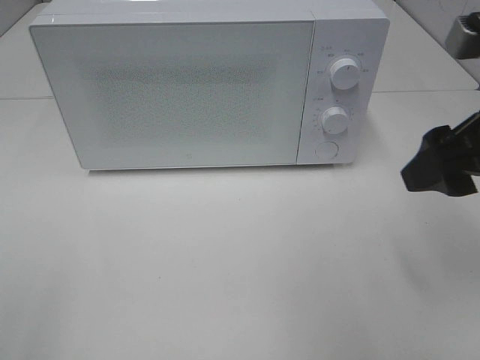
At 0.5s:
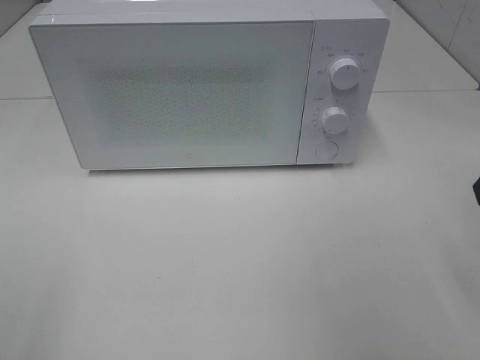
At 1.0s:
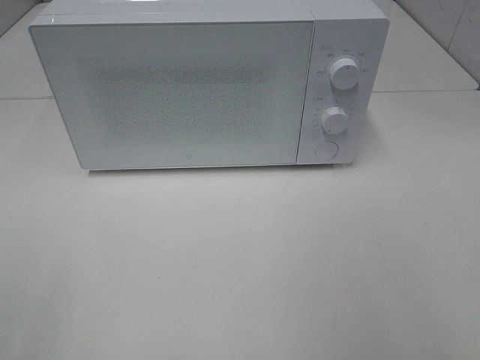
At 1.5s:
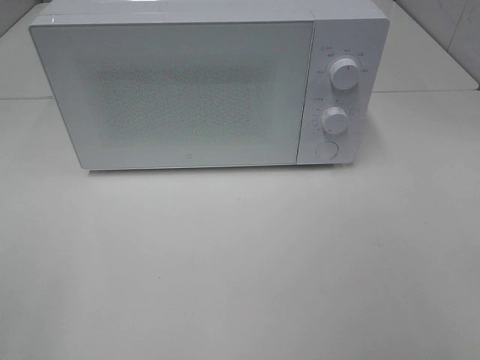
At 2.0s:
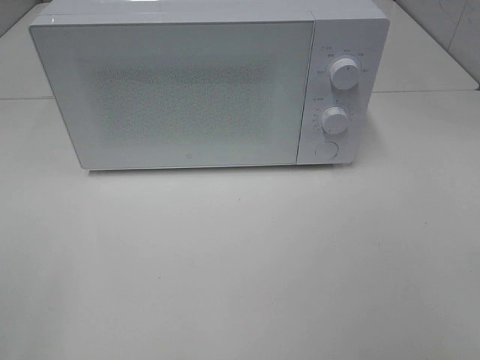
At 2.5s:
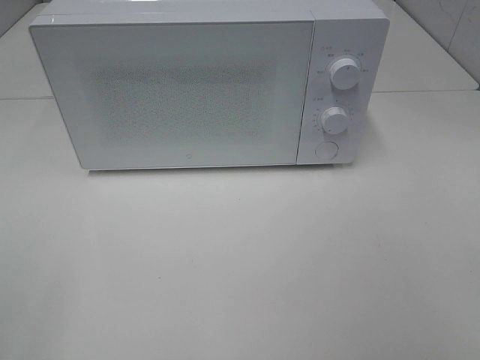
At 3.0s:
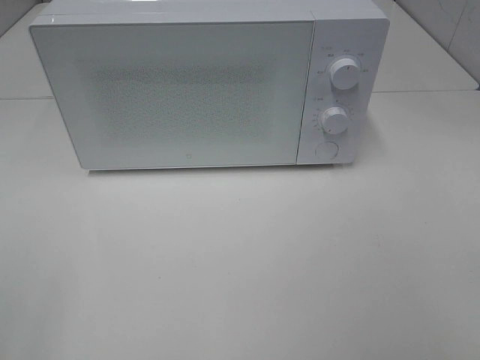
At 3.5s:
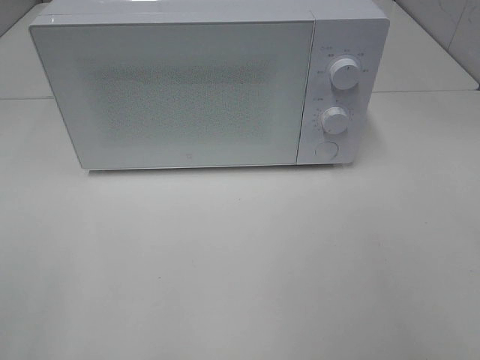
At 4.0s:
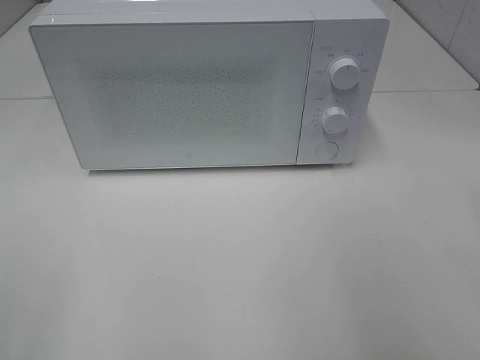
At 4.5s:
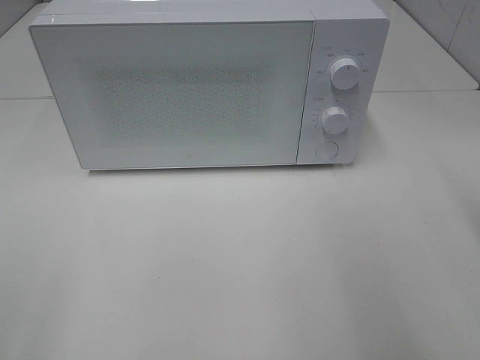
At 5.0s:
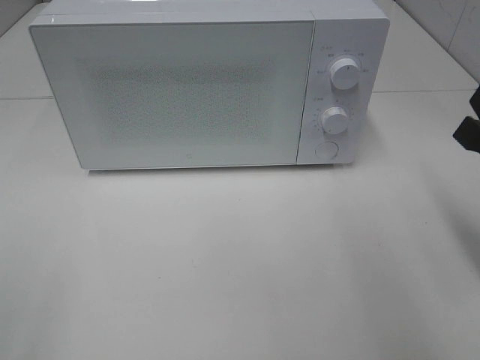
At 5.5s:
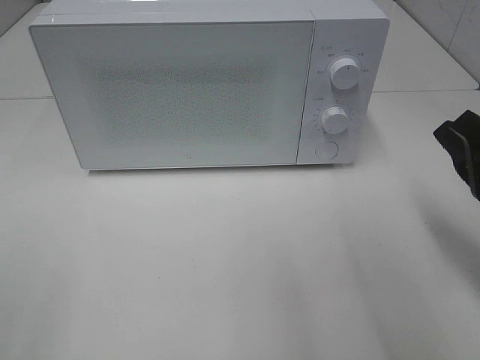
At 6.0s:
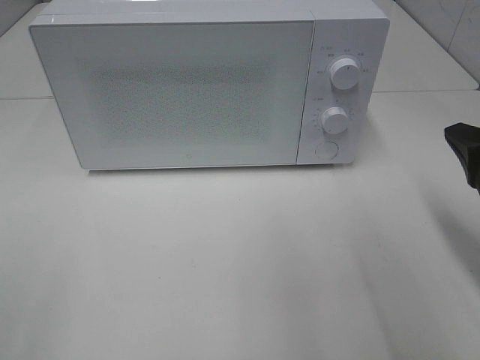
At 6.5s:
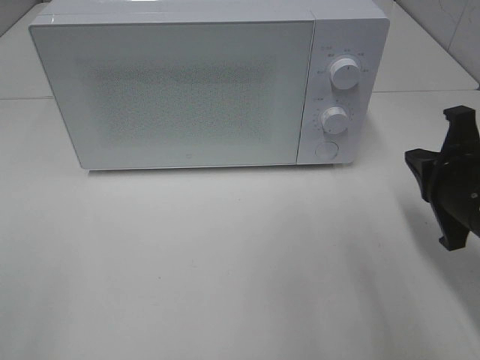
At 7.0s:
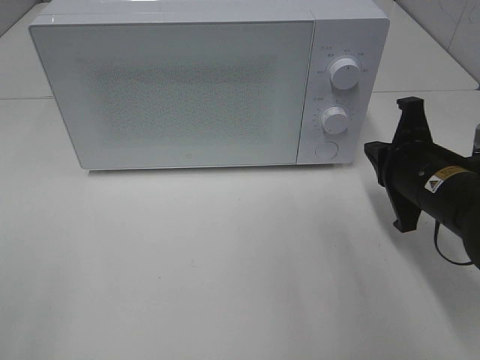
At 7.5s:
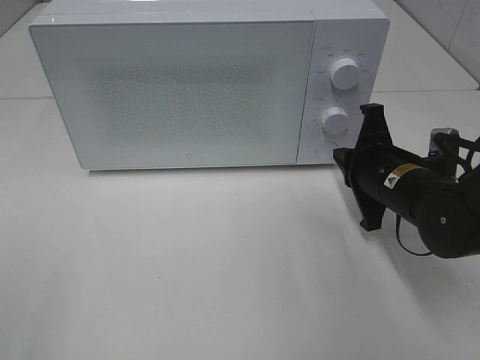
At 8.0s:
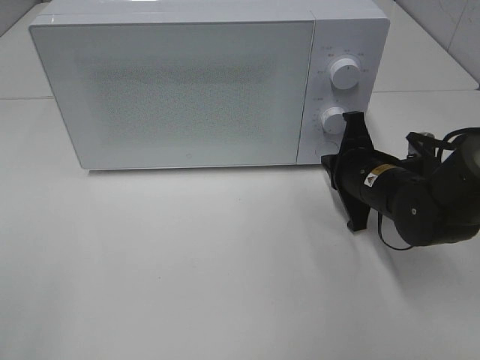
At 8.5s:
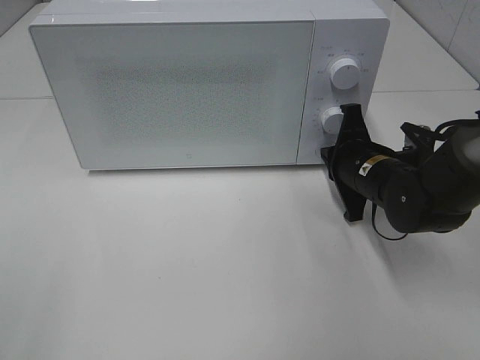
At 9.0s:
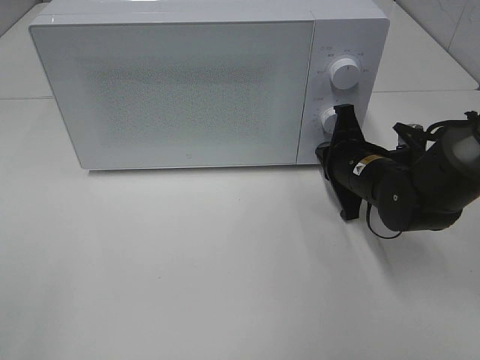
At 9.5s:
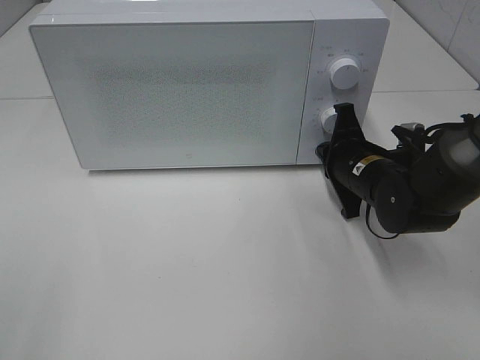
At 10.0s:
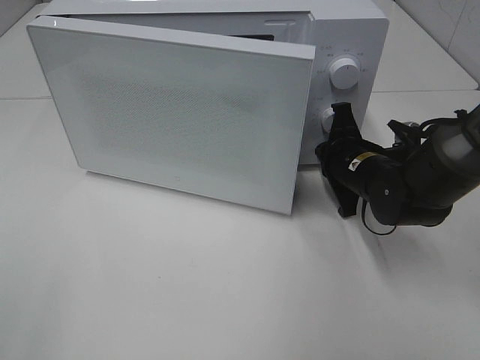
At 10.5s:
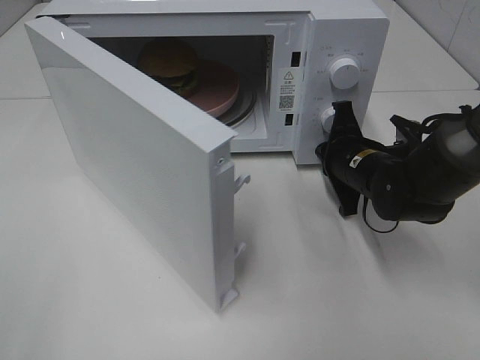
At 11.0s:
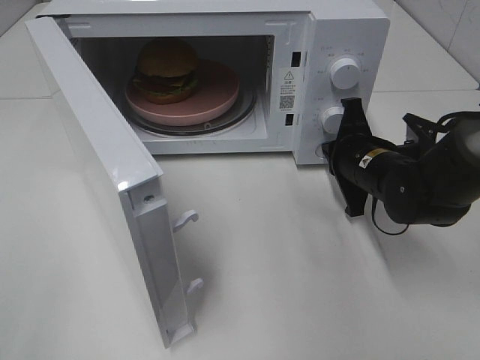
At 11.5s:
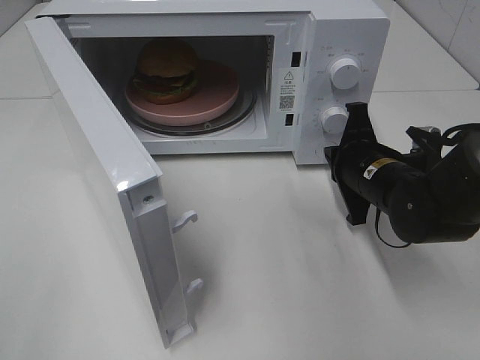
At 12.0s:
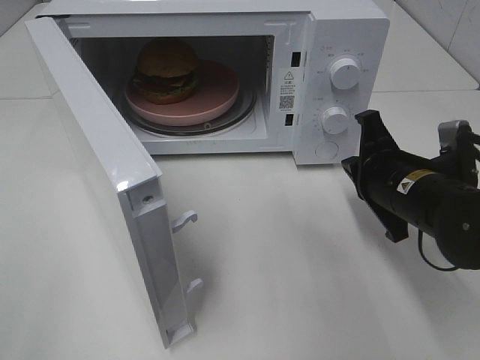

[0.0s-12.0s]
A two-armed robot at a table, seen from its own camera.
Task of the whole recording: Heat the burger.
Step, 0.0s to 11.0s: Right hand: press the switch.
0.0s to 2.0s: The right gripper heads backward, covering some 20 cm.
4.0s to 6.0s: The right gripper is displaced downward and forward by some 15 cm.
6.0s to 8.0s: The right gripper heads forward, downward and to the left, covering about 15 cm.
8.0s to 10.0s: The grippers stay close to where they were, moving slightly.
10.0s to 12.0s: The right gripper moves backward, roughly 10 cm.

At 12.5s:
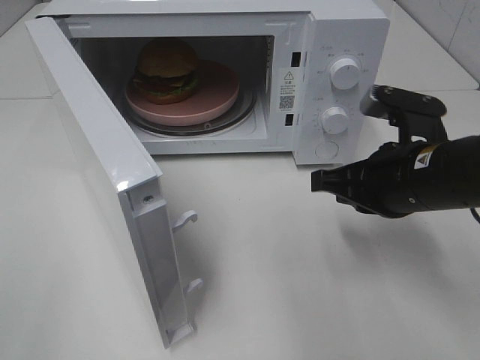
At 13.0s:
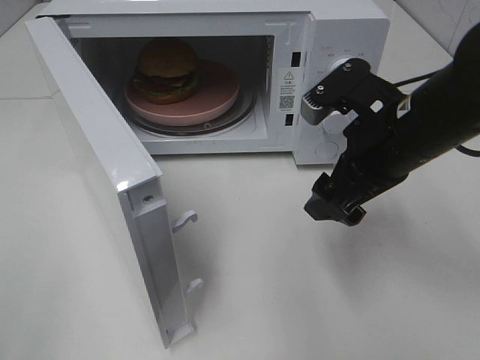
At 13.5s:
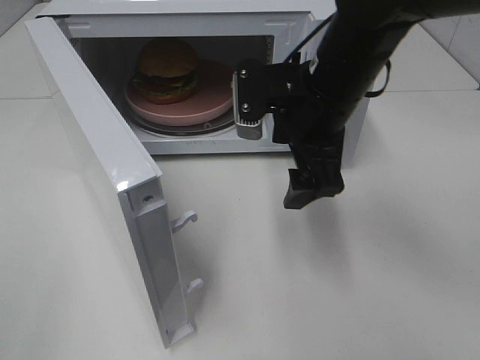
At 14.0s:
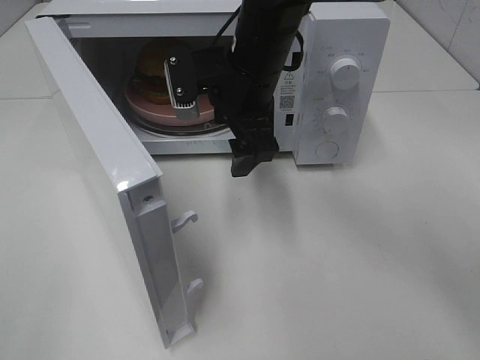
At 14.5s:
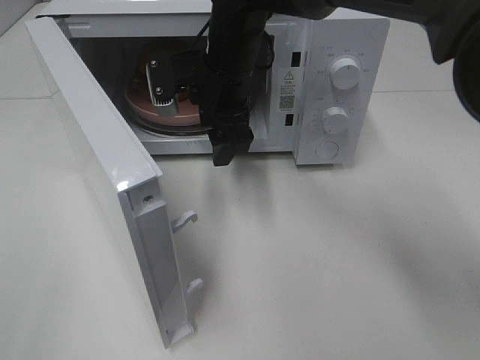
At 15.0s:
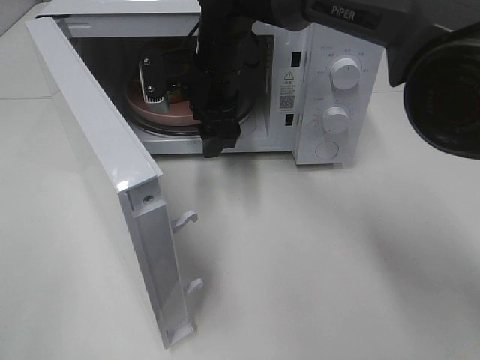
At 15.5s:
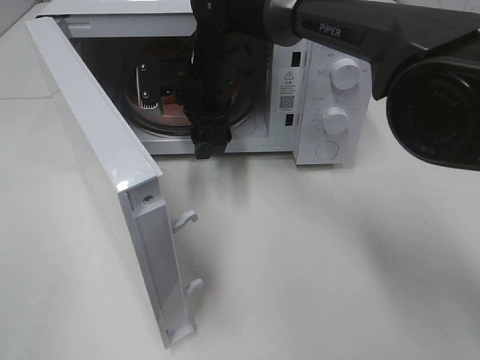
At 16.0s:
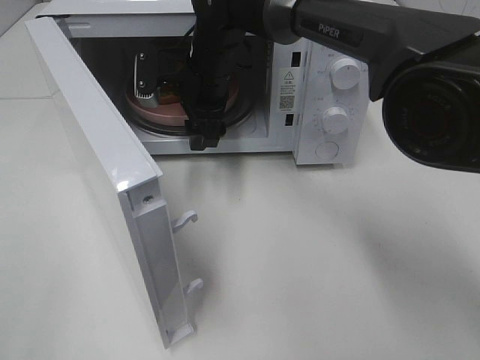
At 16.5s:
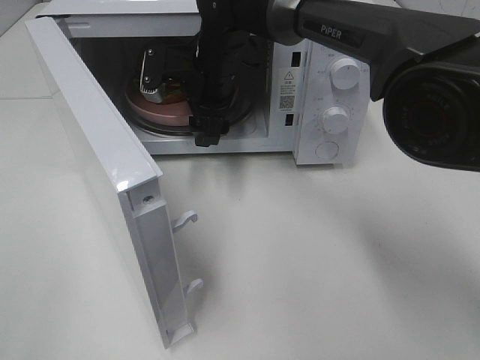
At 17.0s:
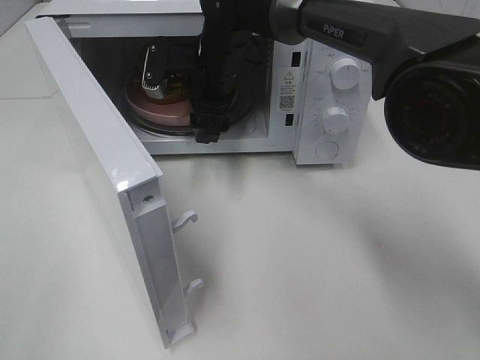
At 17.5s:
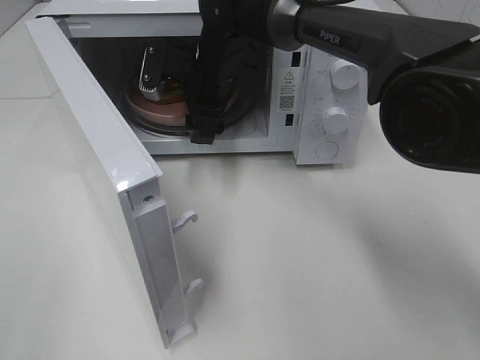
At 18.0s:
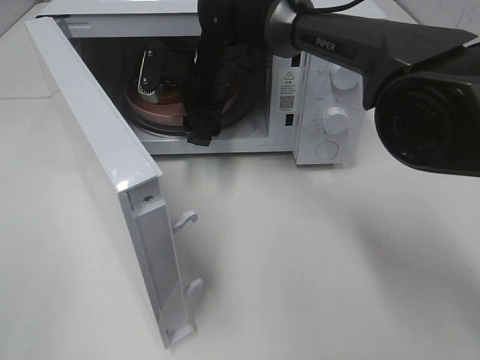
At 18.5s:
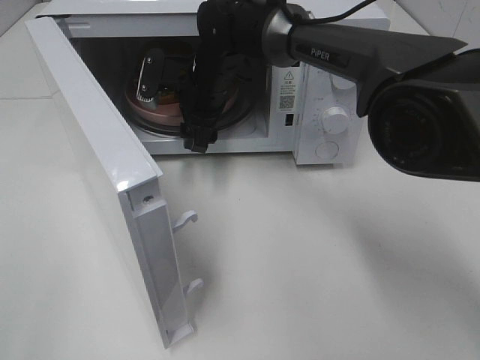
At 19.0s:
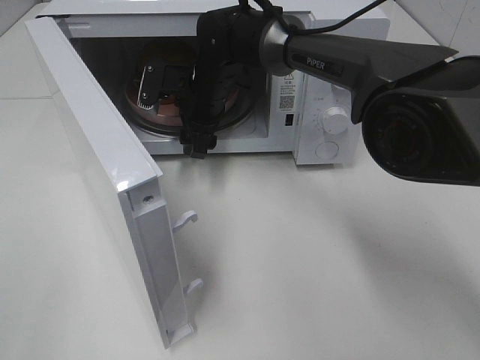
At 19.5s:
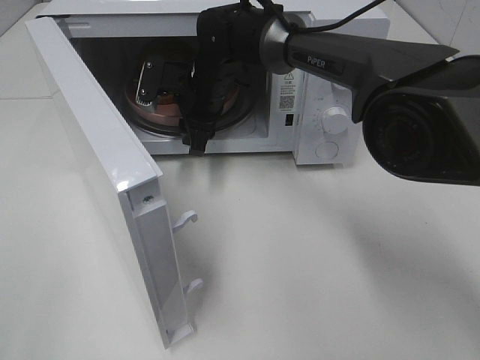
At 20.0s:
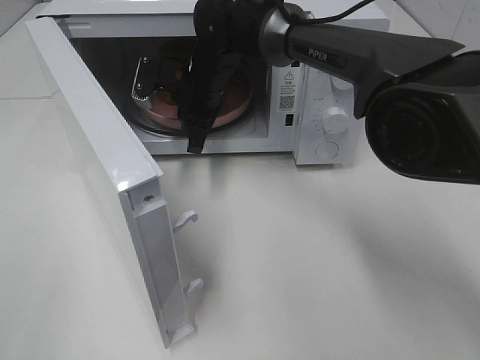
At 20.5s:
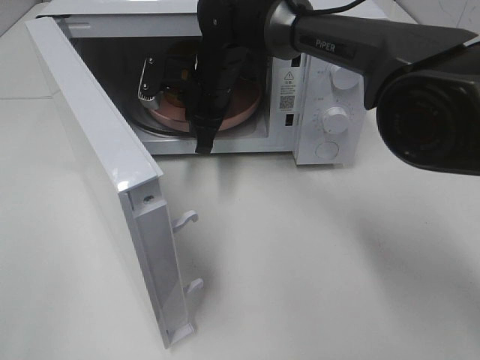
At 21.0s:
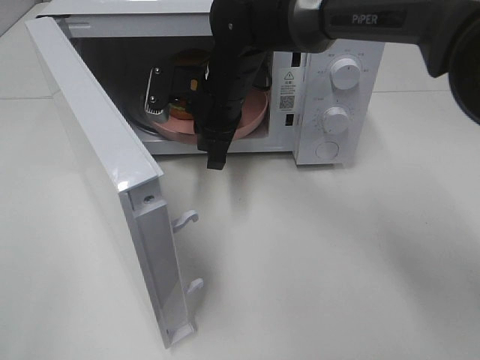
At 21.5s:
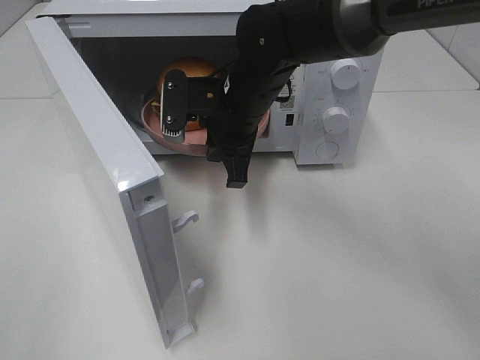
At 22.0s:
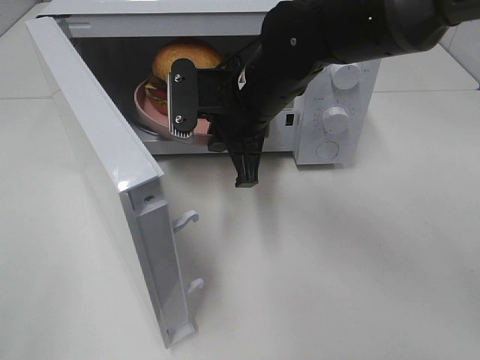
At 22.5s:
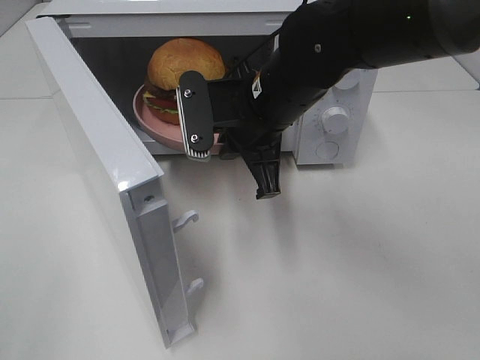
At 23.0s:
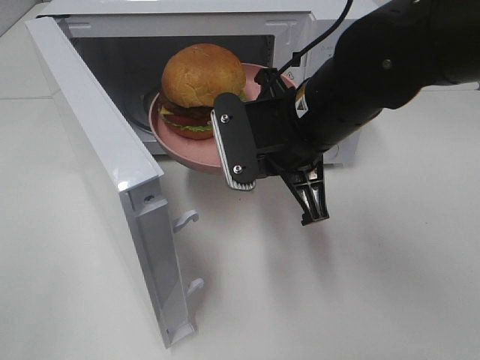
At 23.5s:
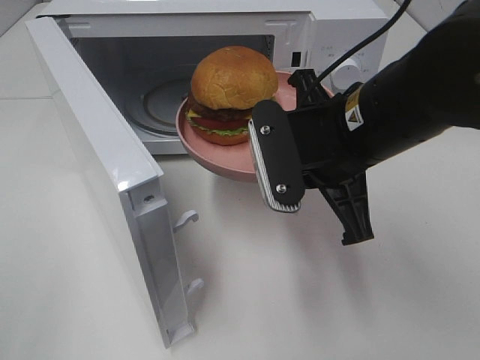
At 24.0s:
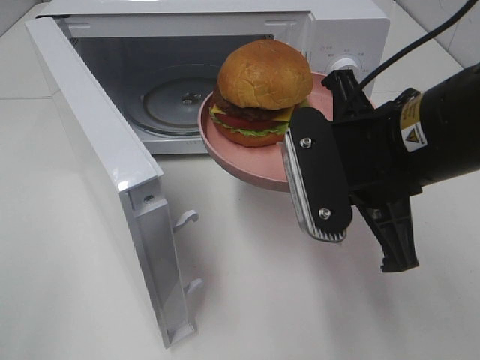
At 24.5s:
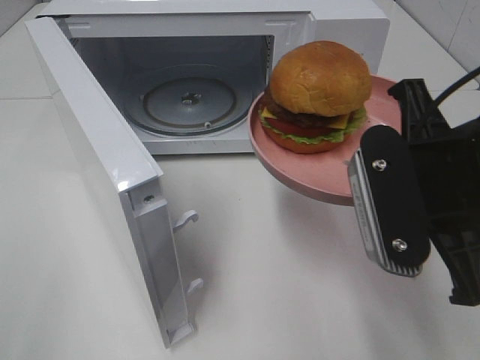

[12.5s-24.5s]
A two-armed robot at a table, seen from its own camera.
Task of the whole recording: Heat the burger.
Step, 12.5s to 19.5s: Right hand: grab the plate with the hamburger.
12.5s to 14.5s: The right gripper shifts about 25 cm to the left and forward, and opens its fingers.
14.5s to 16.5s: The right gripper changes place by roughly 5 cm.
16.5s to 18.5s: The grippers stay close to where they were, moving slightly.
18.5s to 20.5s: The right gripper closes its fingers.
20.5s to 22.5s: The right gripper shifts approximately 15 cm backward and to the right.
22.5s to 24.5s: The right gripper moves backward and to the right, roughly 20 cm.

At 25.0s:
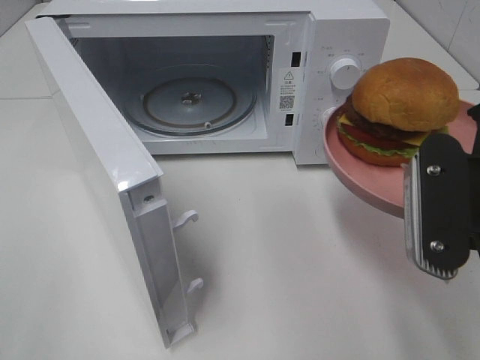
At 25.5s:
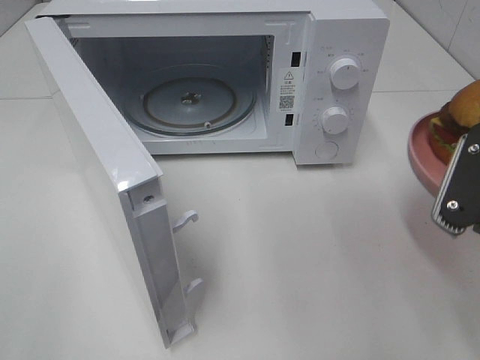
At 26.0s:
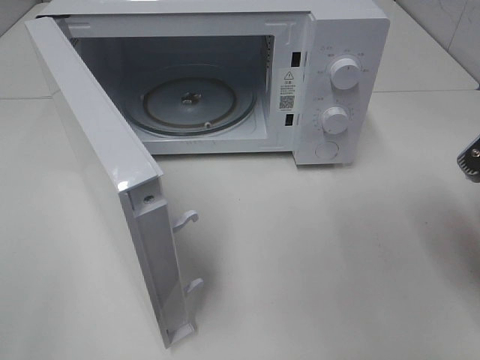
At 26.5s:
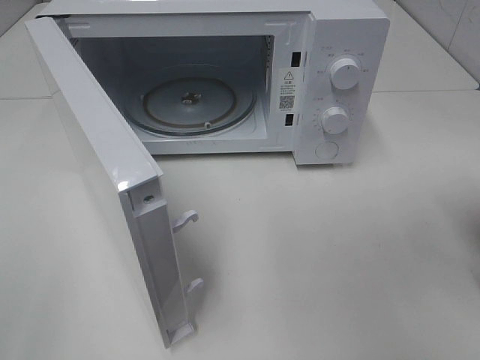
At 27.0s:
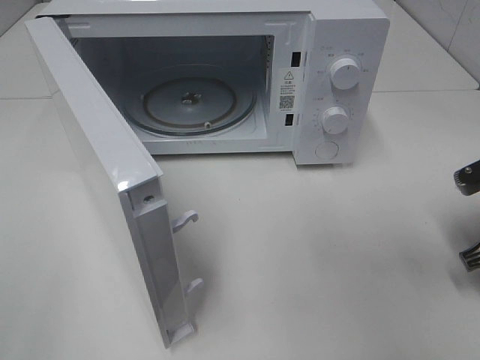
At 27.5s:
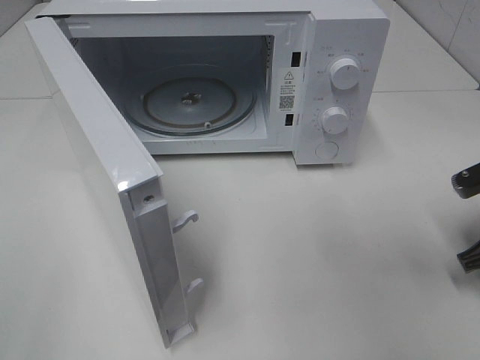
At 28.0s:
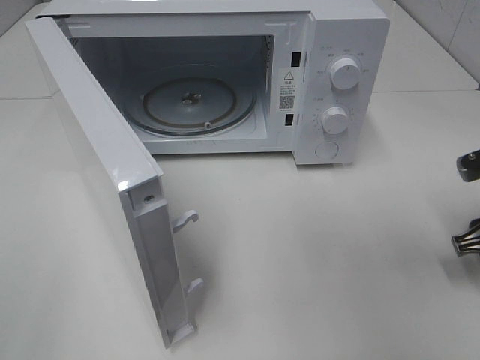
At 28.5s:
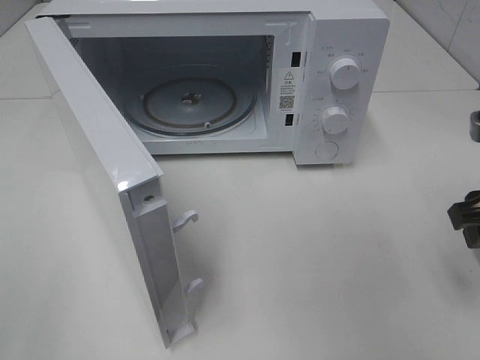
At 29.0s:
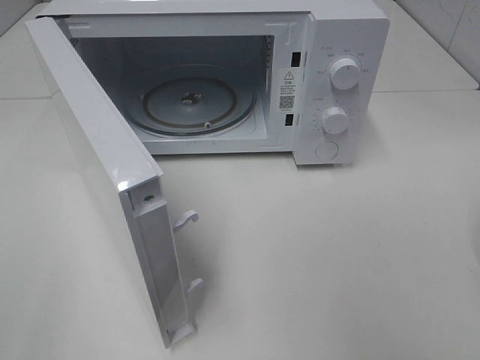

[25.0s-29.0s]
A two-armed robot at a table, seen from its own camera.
Task of the whole recording: Heat the burger.
Step, 25.0s to 27.5s: Right hand: place the plate on the table.
25.0s to 27.0s: The right gripper heads downward, to the right and forward, covering approximately 15 cm.
27.0s to 29.0s: The right gripper shifts some 20 cm upward and backward, and opens its fingers.
